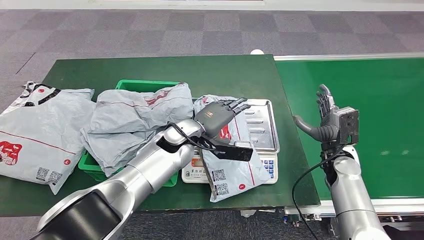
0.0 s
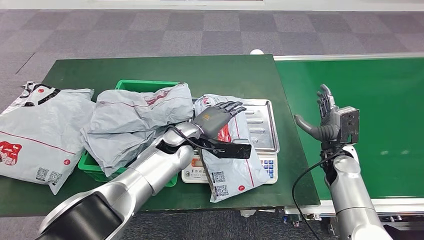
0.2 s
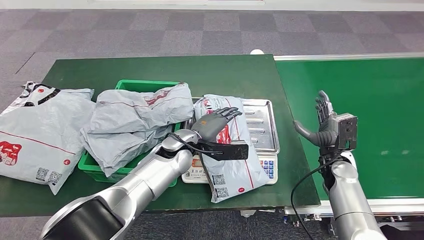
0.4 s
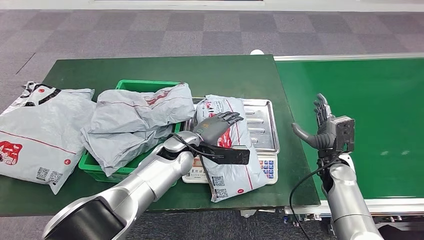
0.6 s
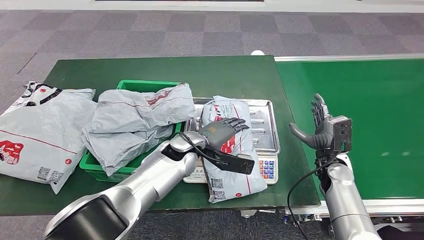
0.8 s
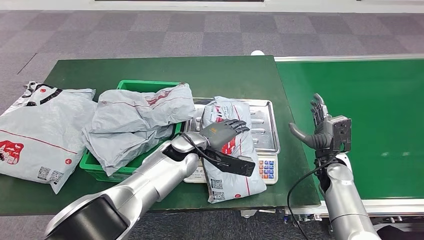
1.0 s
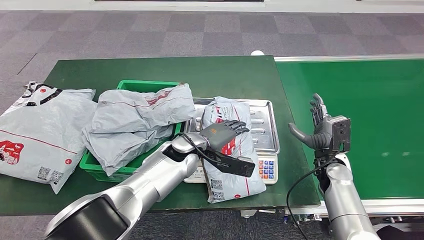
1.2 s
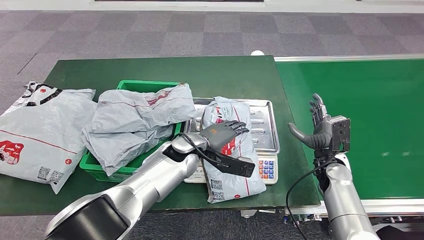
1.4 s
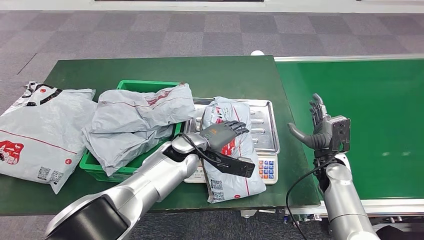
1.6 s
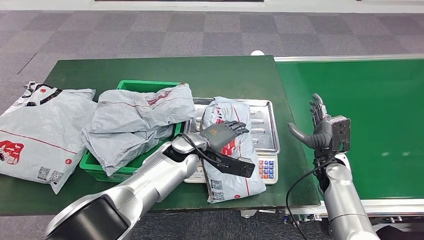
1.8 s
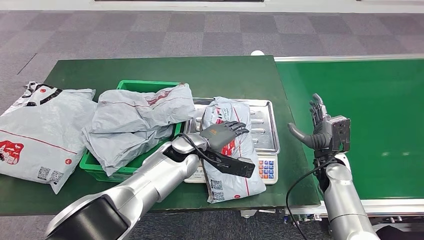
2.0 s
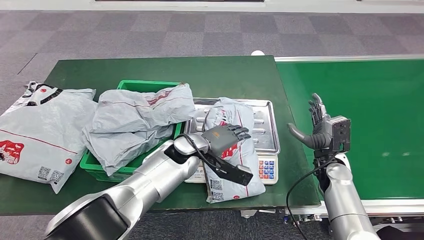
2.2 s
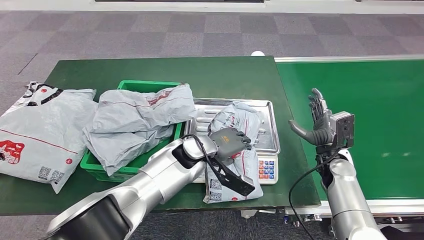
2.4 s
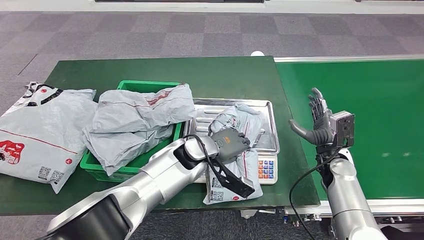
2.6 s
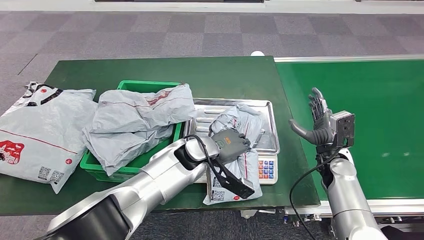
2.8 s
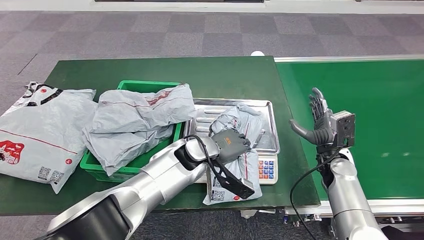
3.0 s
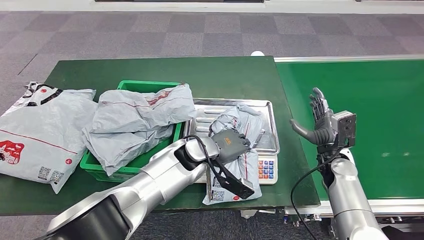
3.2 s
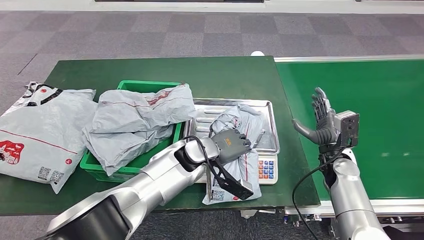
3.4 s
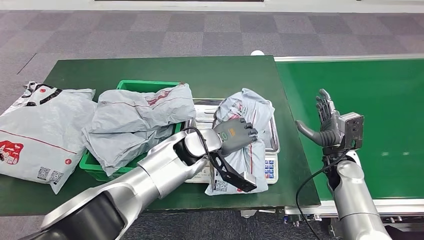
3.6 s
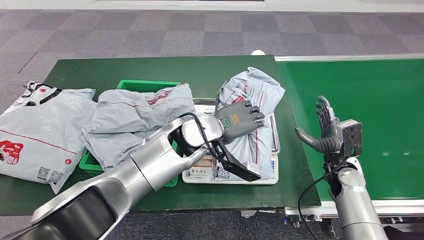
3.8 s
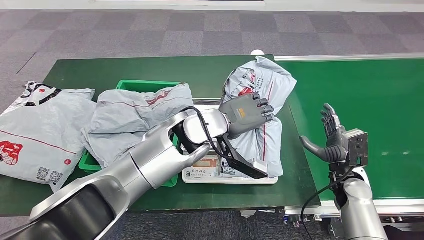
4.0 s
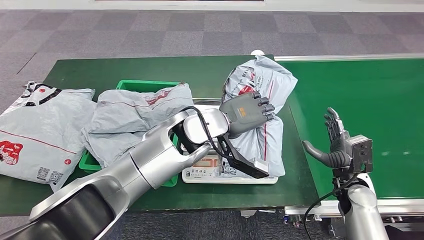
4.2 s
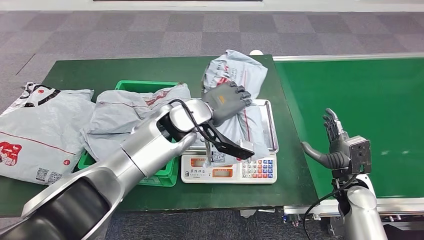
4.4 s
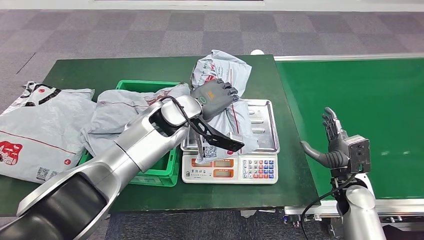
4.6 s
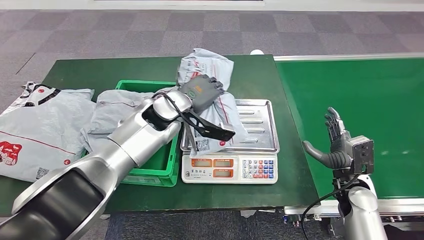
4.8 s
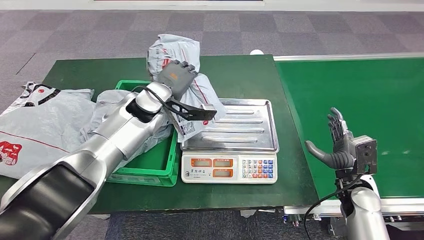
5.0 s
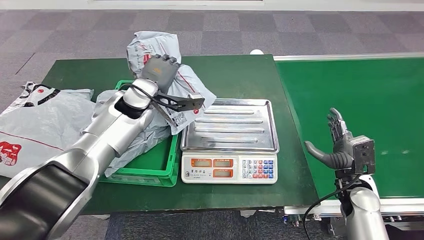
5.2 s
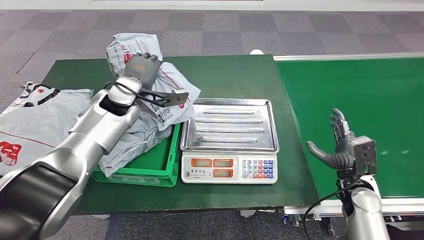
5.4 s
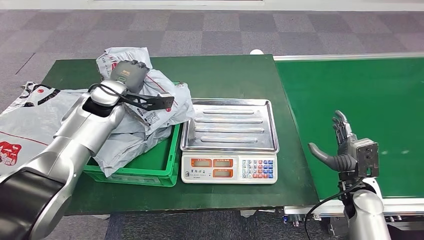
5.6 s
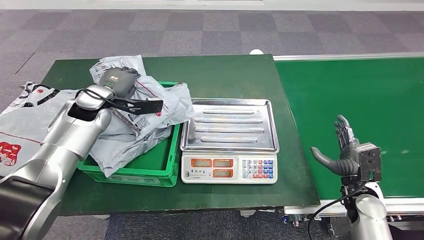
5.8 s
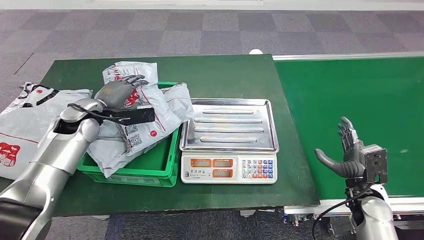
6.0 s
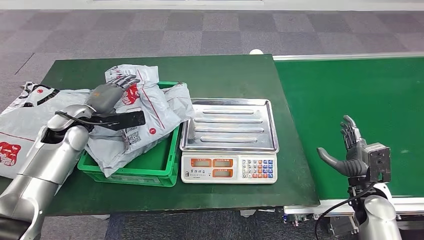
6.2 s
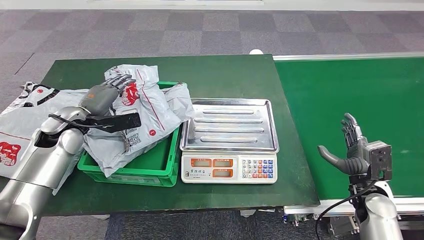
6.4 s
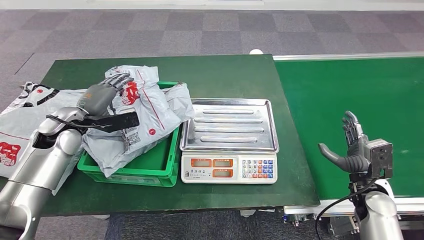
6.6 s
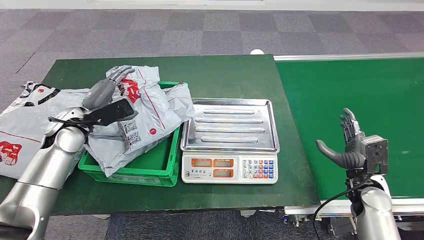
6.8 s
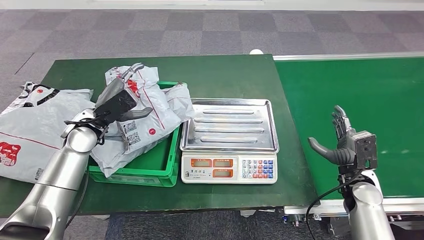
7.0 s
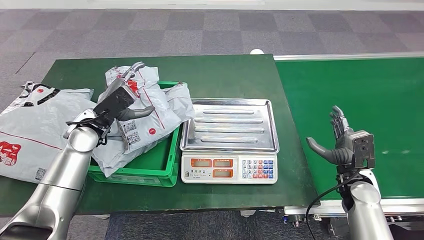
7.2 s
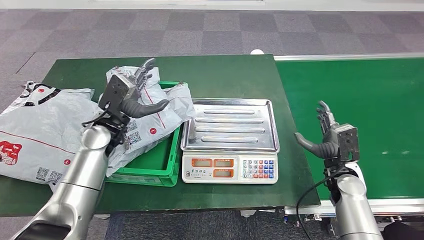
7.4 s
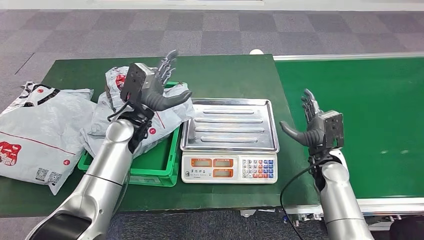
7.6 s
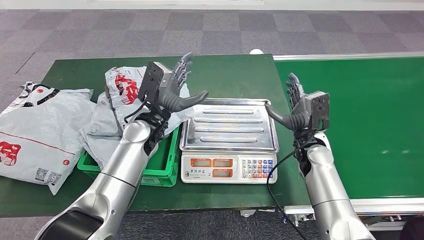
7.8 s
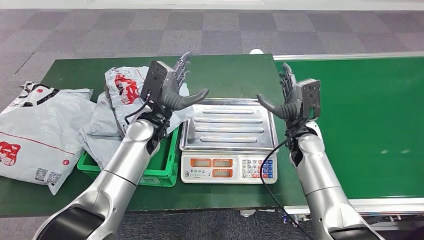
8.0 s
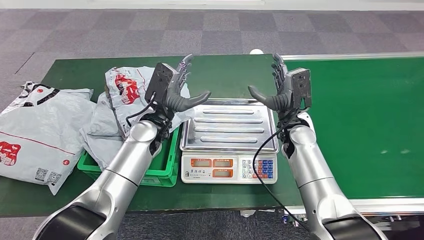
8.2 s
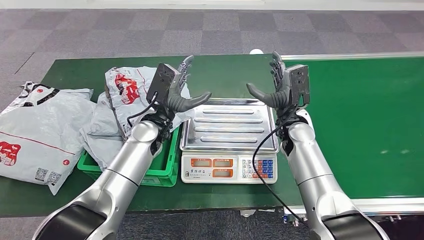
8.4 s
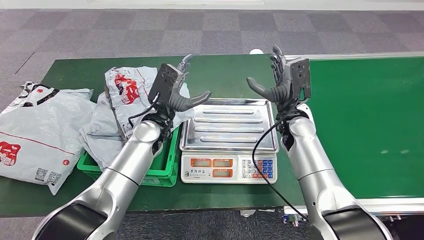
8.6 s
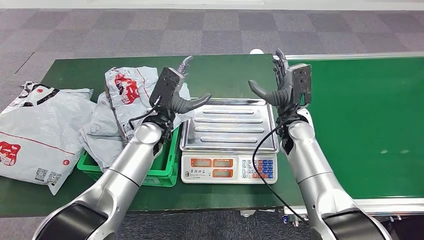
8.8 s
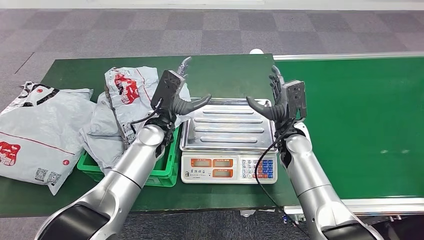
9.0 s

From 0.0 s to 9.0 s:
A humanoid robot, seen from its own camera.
Step, from 0.0 s to 4.6 s: Pick up the parcel from the inbound machine.
Step, from 4.8 s to 9.0 s: Place the parcel into the delivery box.
